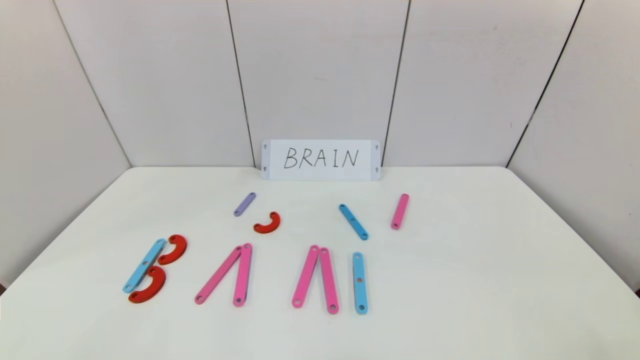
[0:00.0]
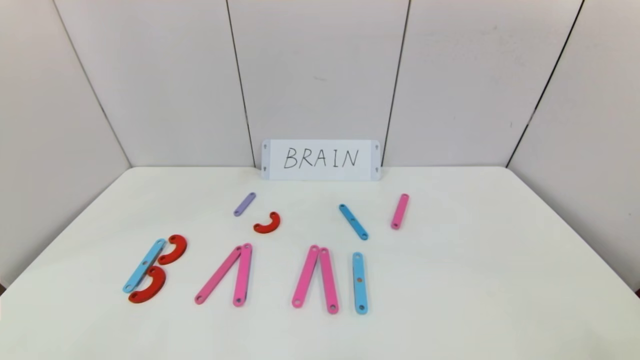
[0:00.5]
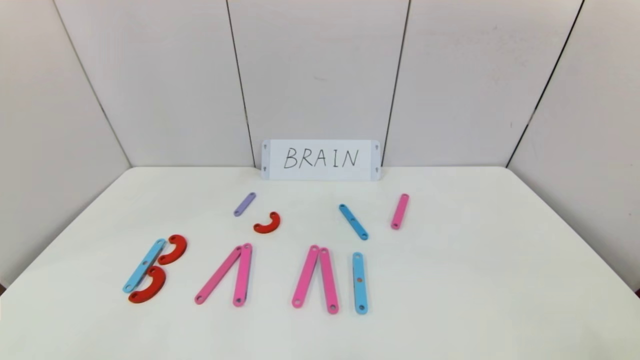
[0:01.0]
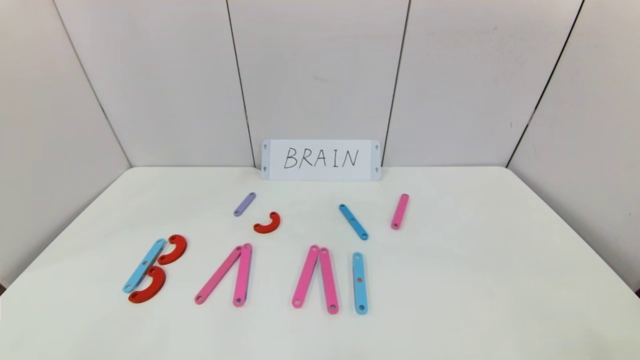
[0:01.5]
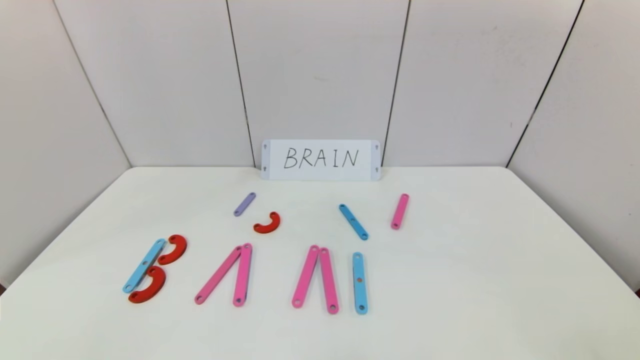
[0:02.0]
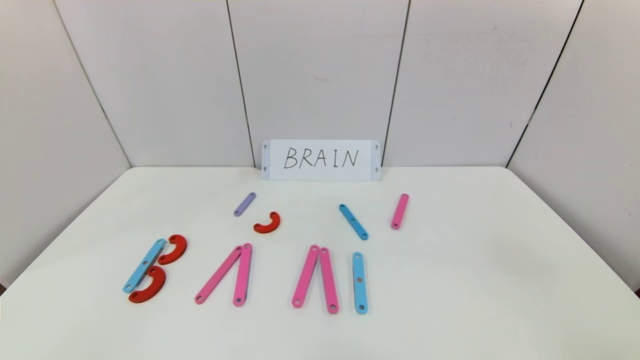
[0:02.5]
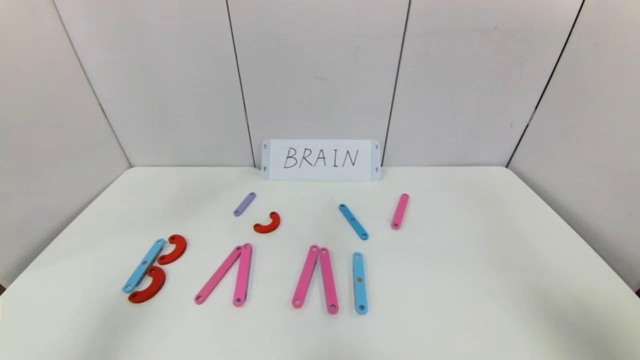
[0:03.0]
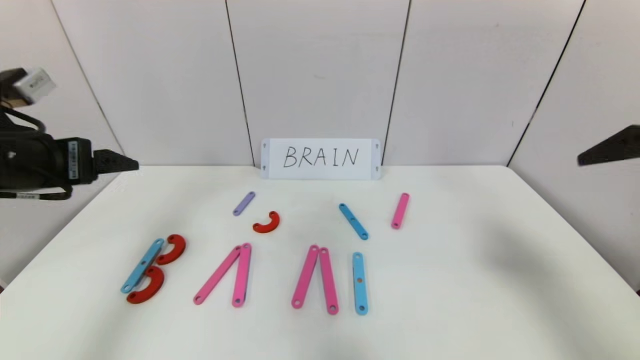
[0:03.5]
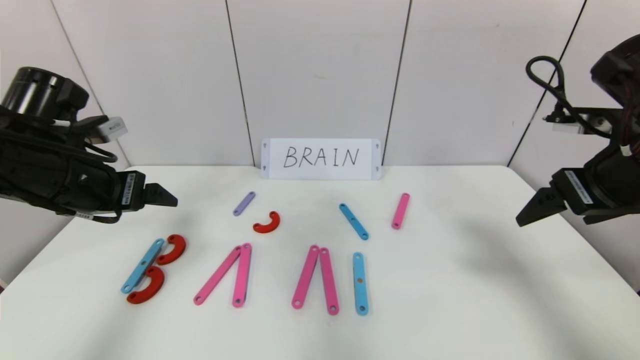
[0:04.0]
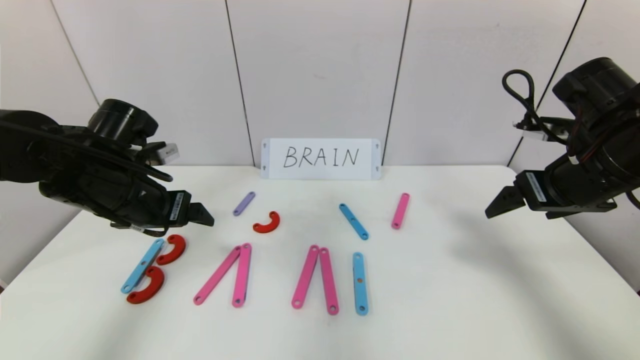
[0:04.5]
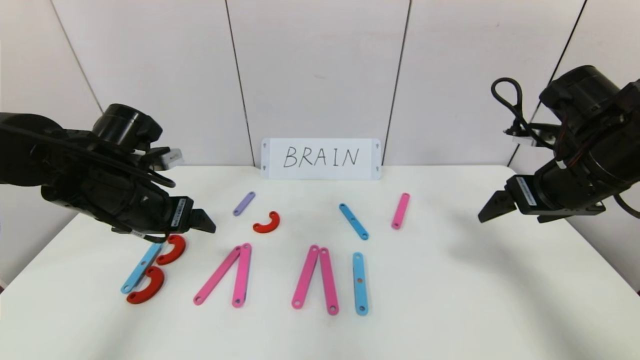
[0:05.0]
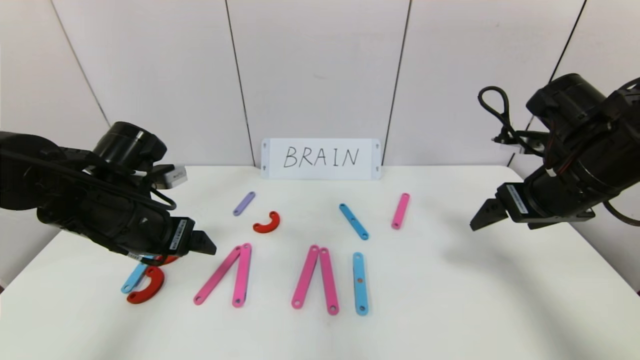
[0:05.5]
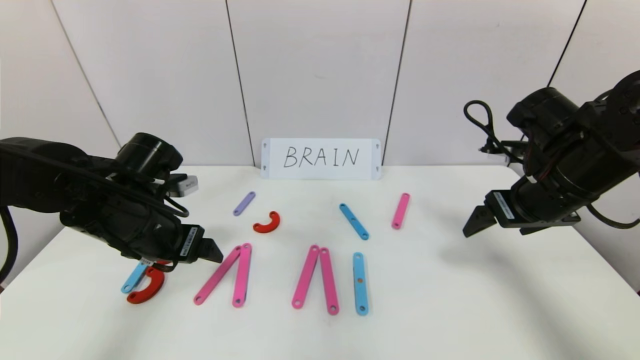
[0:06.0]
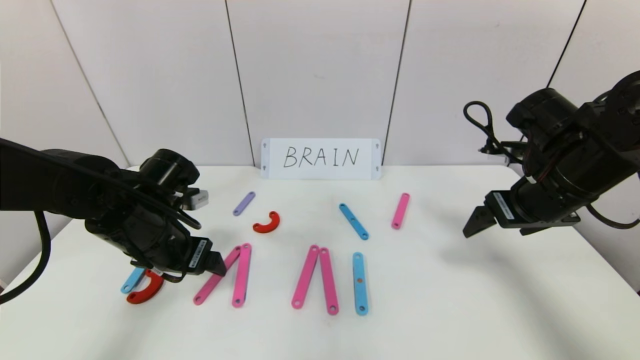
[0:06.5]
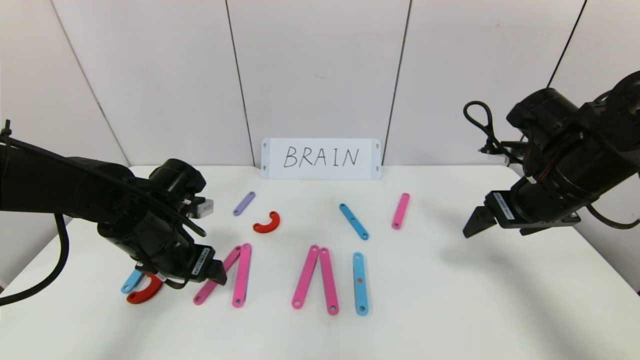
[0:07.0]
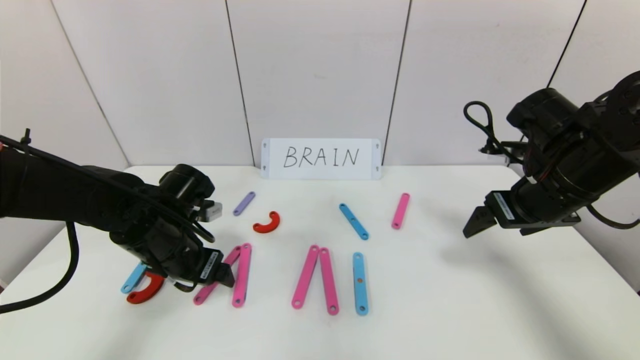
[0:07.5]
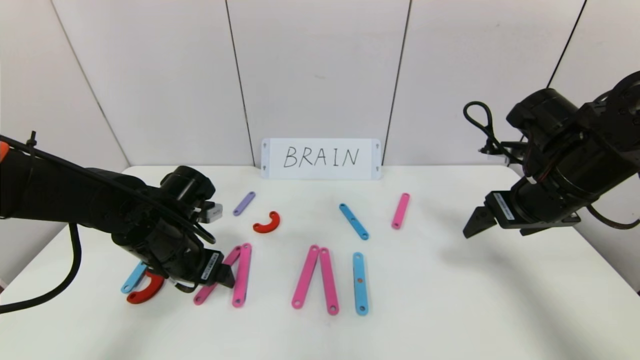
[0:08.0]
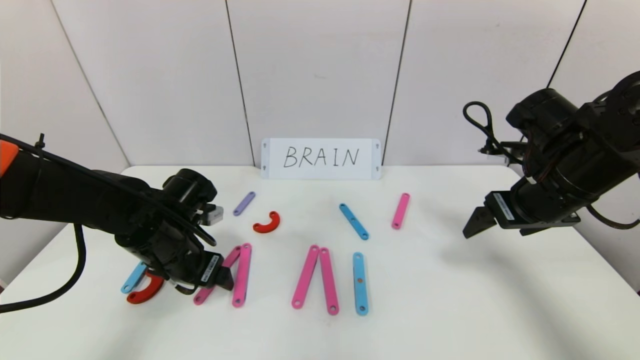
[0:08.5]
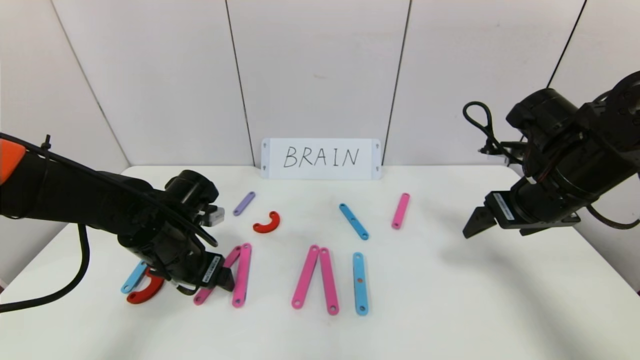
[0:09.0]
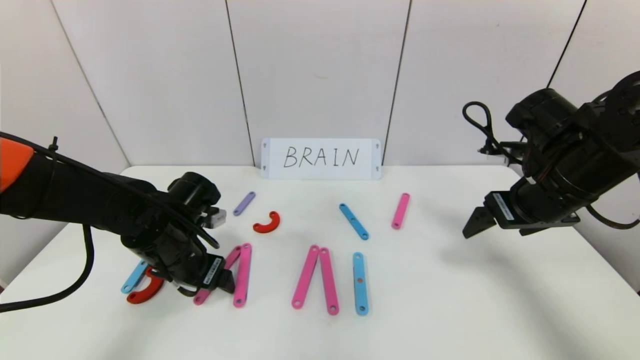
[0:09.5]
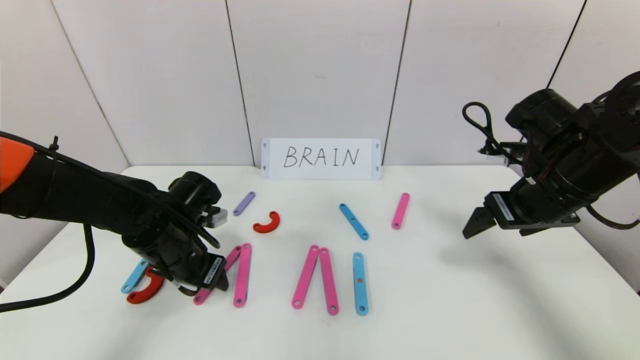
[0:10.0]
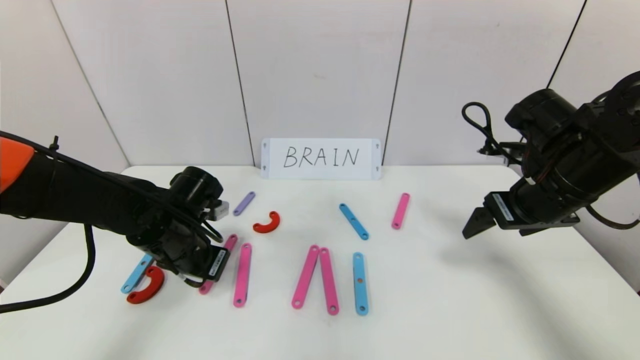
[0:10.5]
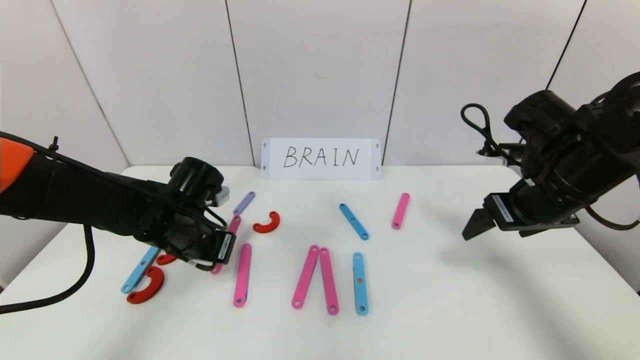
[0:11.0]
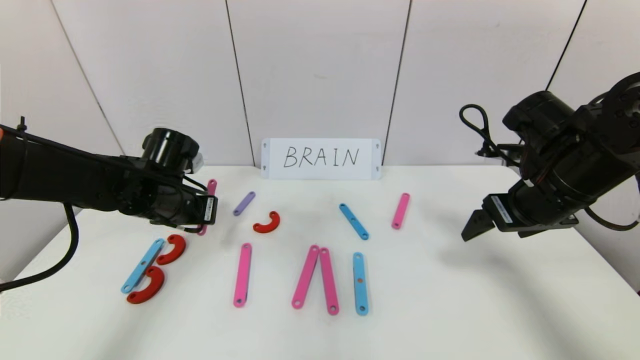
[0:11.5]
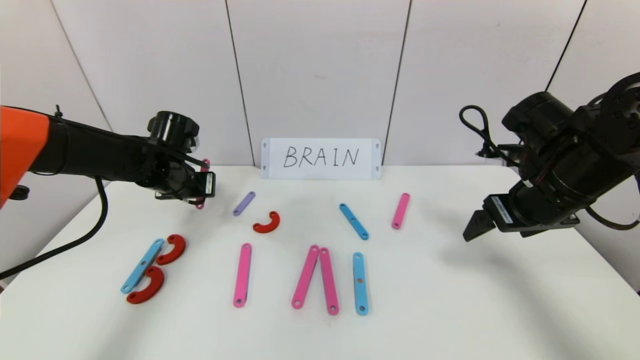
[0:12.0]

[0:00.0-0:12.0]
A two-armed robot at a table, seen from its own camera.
Task of the whole recording: rearrange the word baai as brain.
0:02.0 to 0:04.0: The grippers both shift forward and upward by some 35 cm.
0:04.0 to 0:06.0: The left gripper moves downward and to the right, roughly 10 cm. Meanwhile the right gripper moves downward, roughly 5 cm.
0:06.0 to 0:08.0: The left gripper is displaced downward by roughly 5 cm.
0:08.0 to 0:10.0: The left gripper closes its fingers.
0:10.0 to 0:12.0: The left gripper is displaced forward by some 10 cm, and closes.

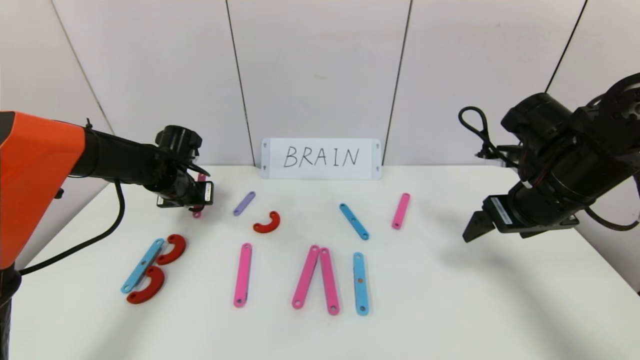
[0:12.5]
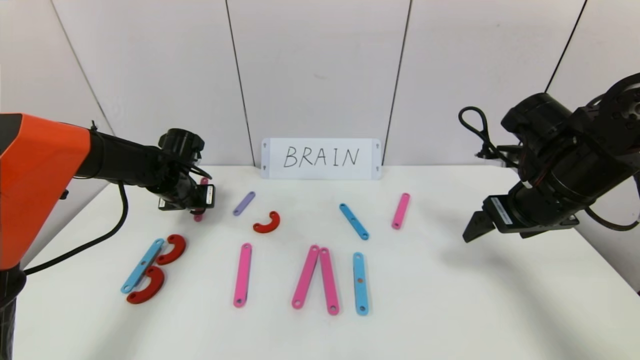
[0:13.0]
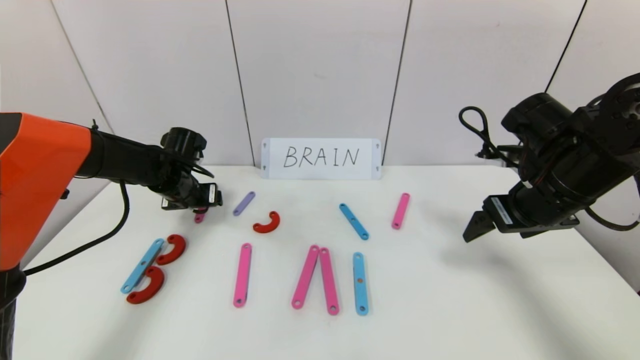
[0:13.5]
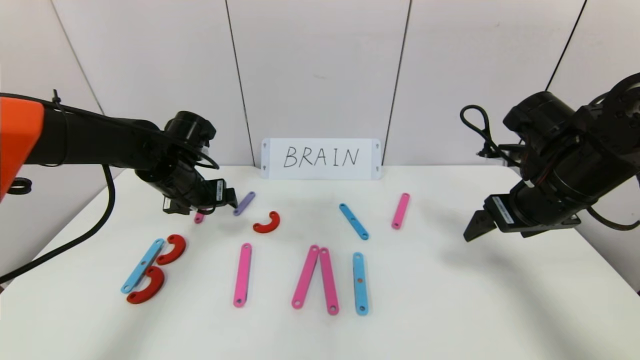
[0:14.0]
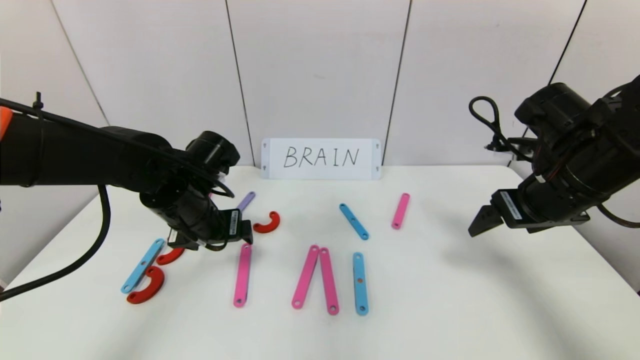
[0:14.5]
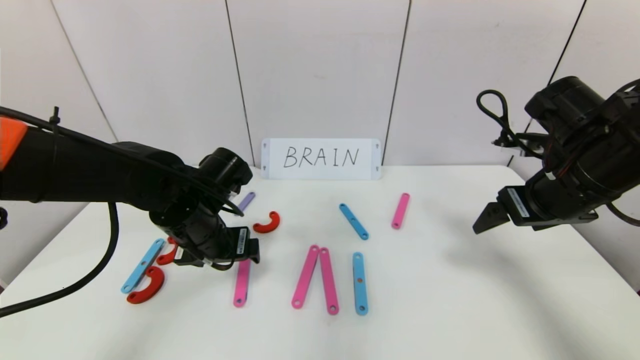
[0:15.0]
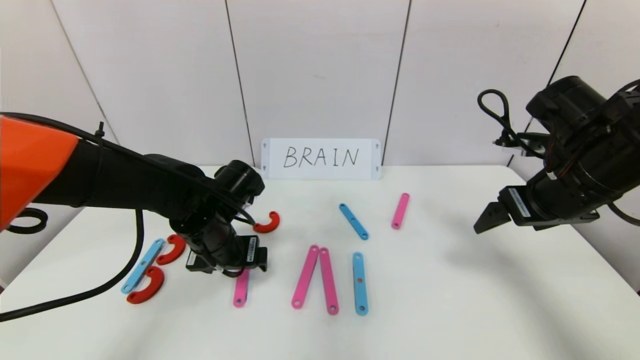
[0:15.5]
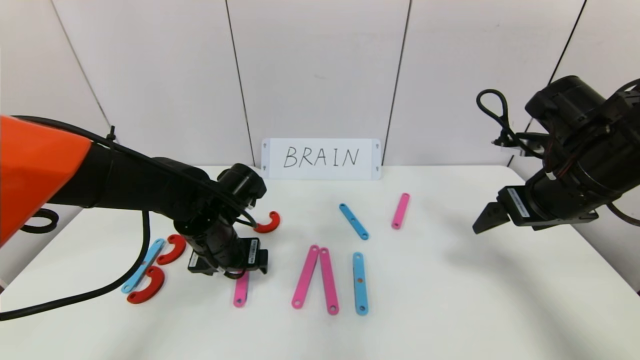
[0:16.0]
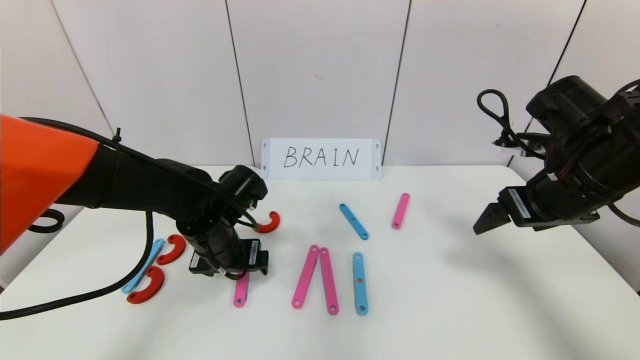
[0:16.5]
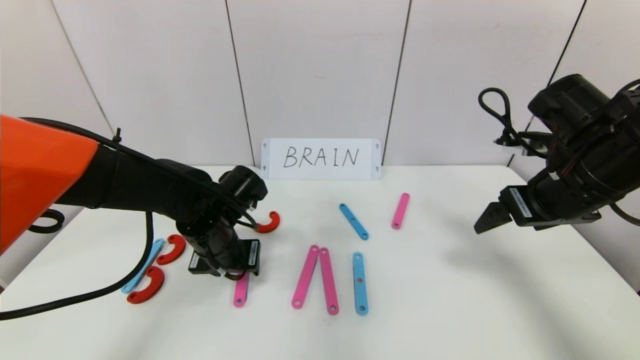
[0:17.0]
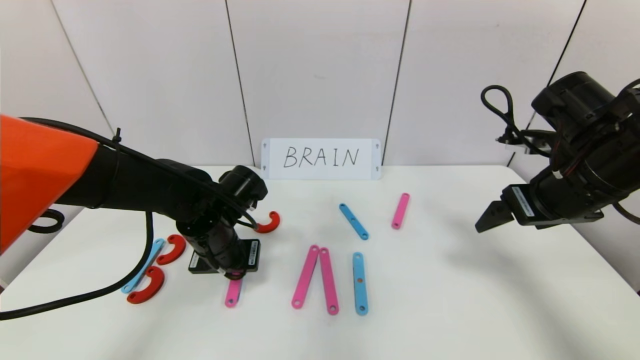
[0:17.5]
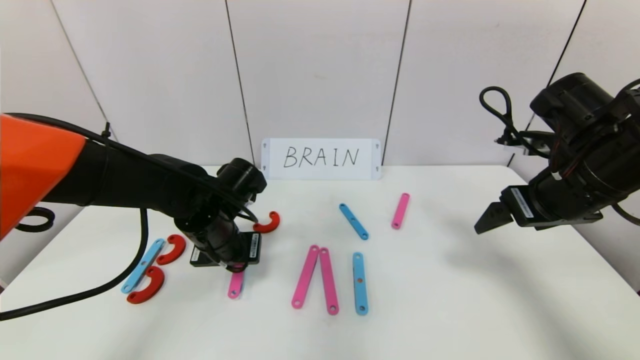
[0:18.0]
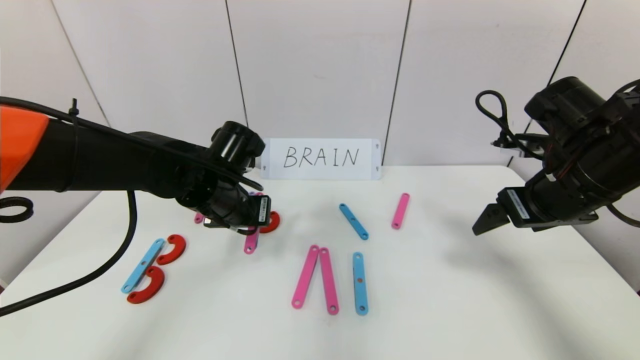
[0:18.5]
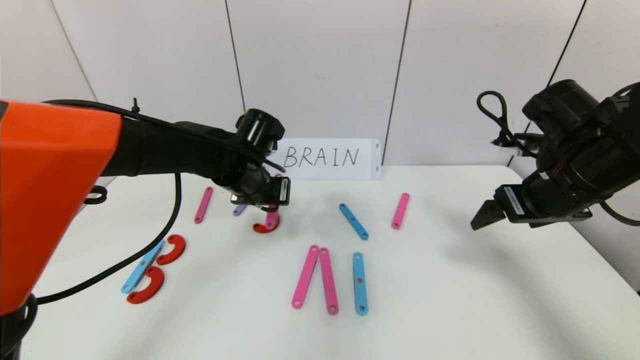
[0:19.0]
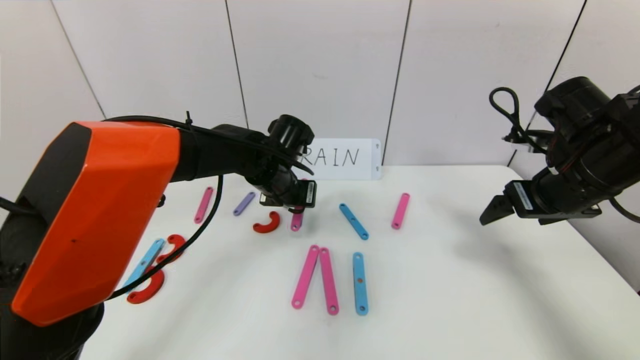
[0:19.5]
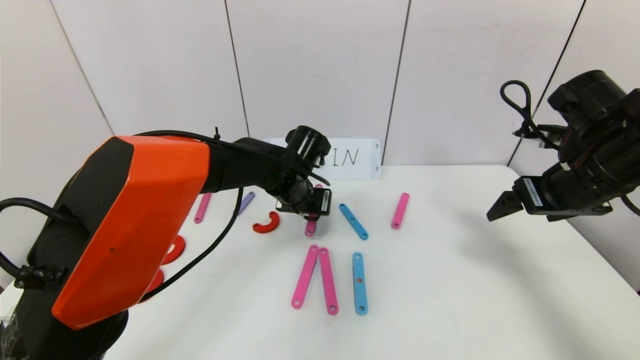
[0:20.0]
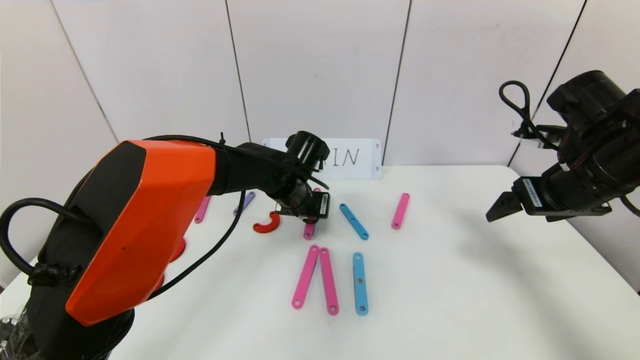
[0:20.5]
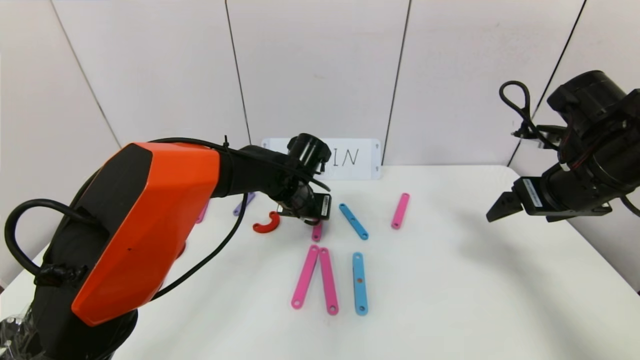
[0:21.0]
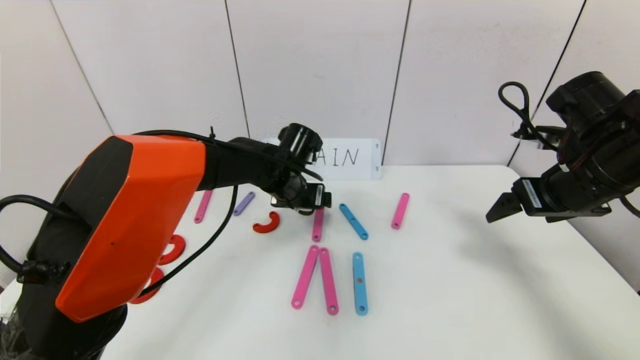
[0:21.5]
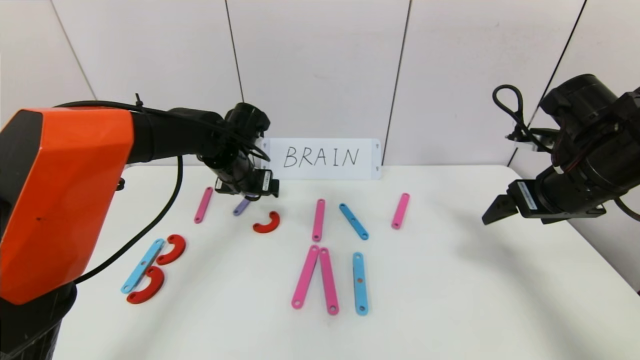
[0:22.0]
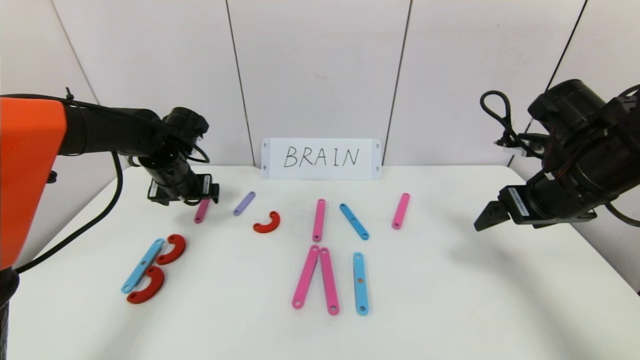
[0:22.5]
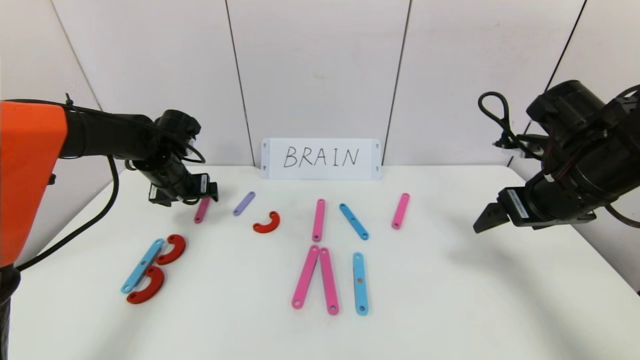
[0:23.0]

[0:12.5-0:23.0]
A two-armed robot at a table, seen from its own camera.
Task of the whole recording: rearrange the word baai as brain.
Step, 0:12.5 to 0:21.5: Disassemble the second character A.
0:12.5 to 0:14.5: The left gripper goes approximately 15 cm backward and to the right, and opens its fingers.
0:14.5 to 0:16.5: The left gripper changes place by roughly 5 cm.
0:16.5 to 0:19.0: The left gripper heads forward and upward, covering some 10 cm, and closes up.
0:19.0 to 0:21.0: The left gripper travels to the right by approximately 5 cm.
0:21.0 to 0:23.0: The left gripper moves to the left, some 20 cm, and opens its fingers.
